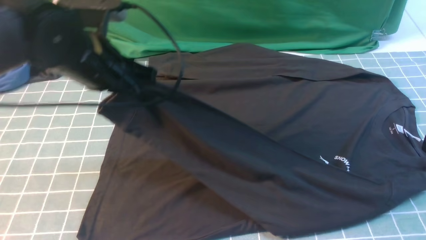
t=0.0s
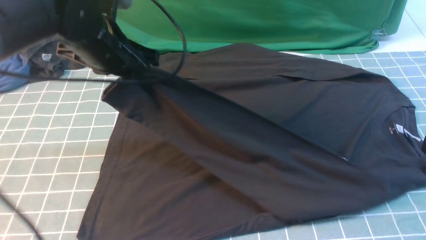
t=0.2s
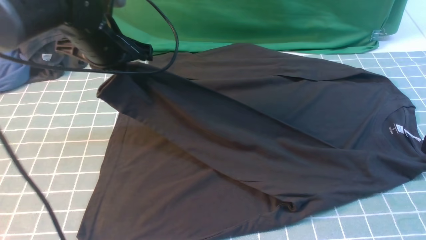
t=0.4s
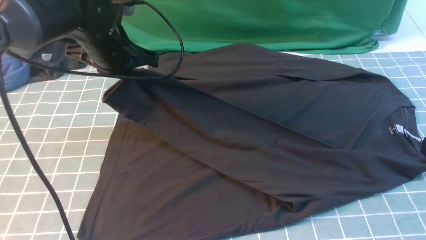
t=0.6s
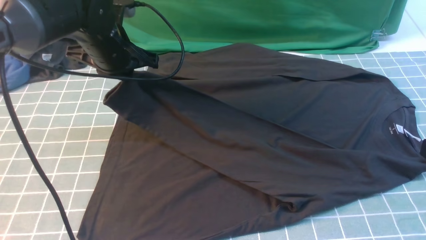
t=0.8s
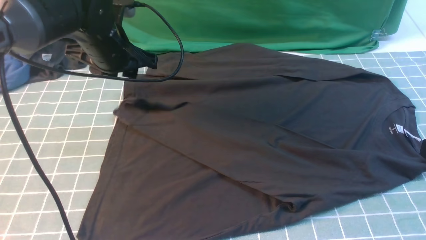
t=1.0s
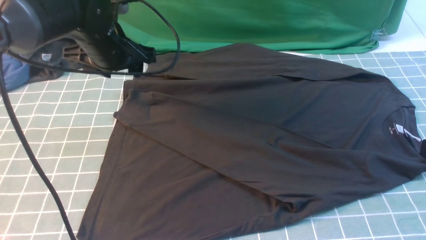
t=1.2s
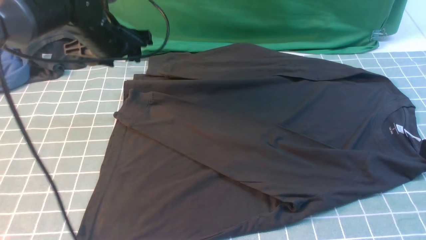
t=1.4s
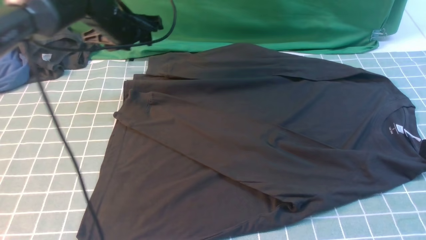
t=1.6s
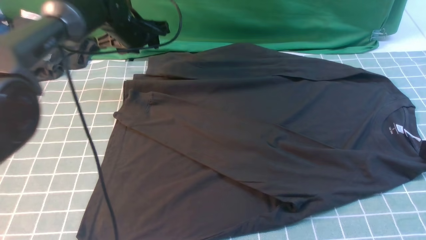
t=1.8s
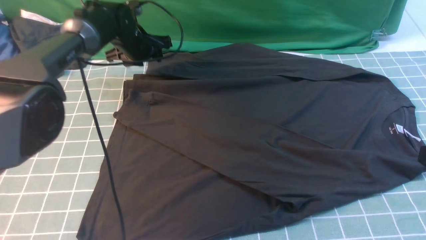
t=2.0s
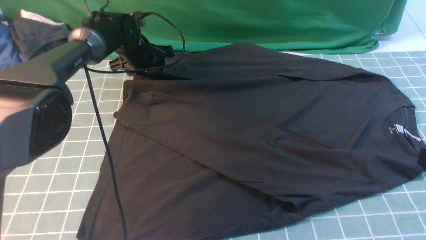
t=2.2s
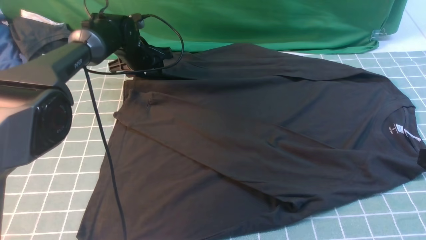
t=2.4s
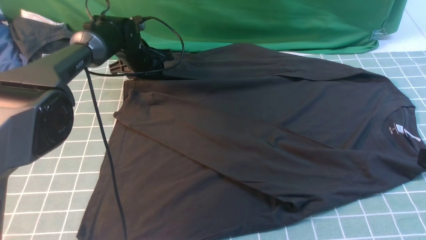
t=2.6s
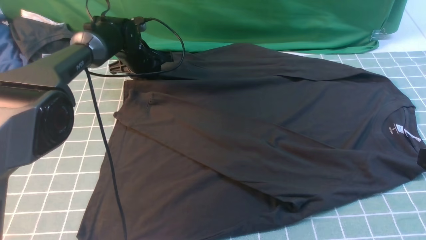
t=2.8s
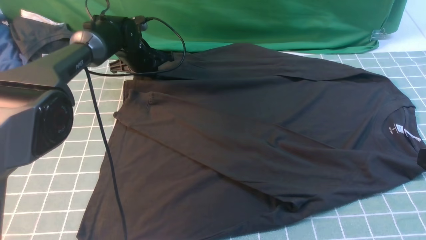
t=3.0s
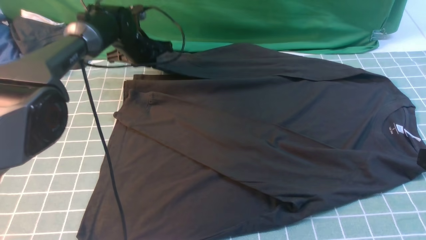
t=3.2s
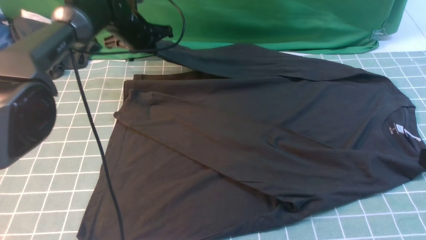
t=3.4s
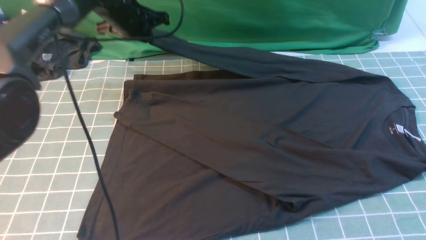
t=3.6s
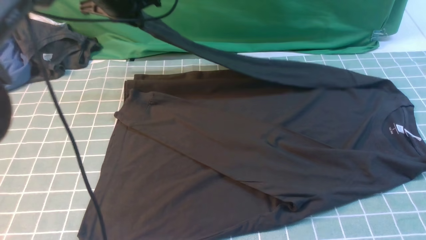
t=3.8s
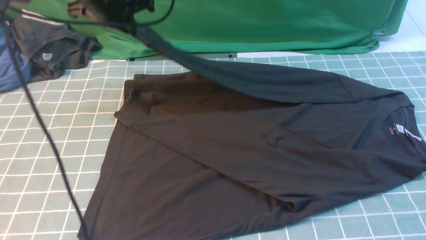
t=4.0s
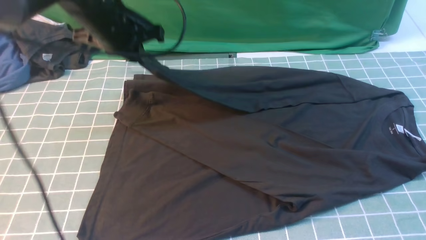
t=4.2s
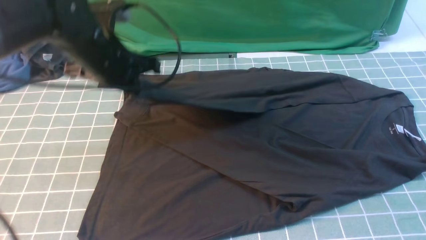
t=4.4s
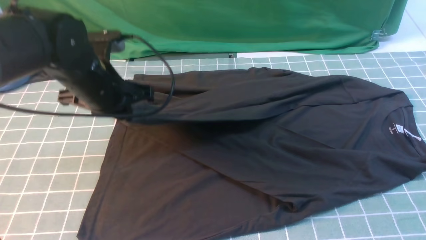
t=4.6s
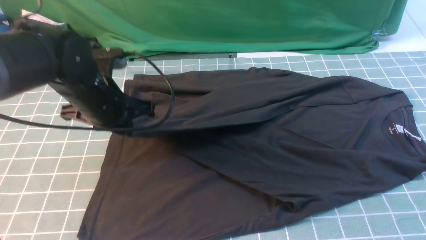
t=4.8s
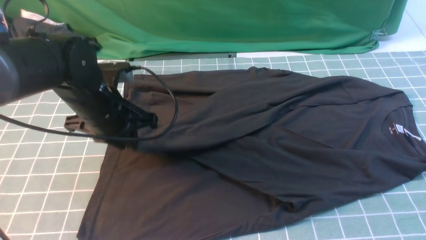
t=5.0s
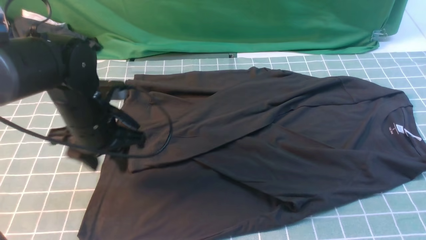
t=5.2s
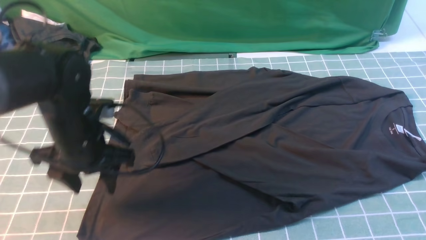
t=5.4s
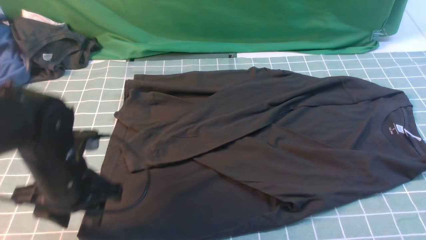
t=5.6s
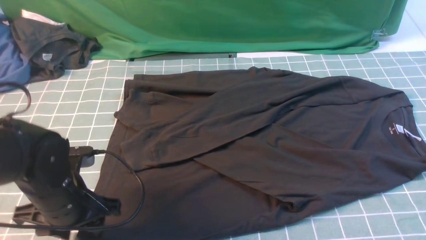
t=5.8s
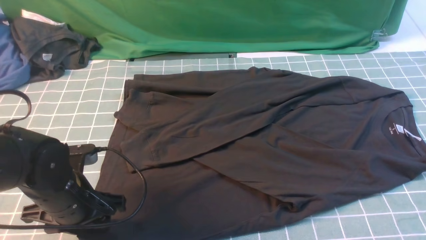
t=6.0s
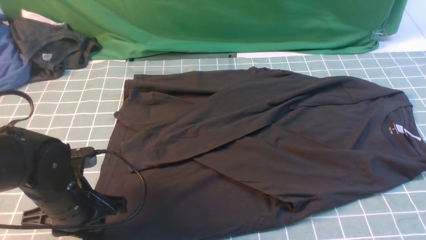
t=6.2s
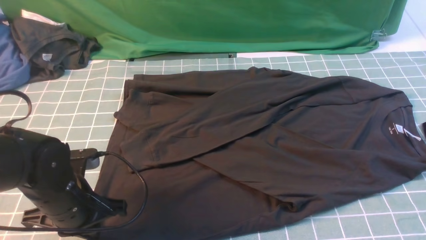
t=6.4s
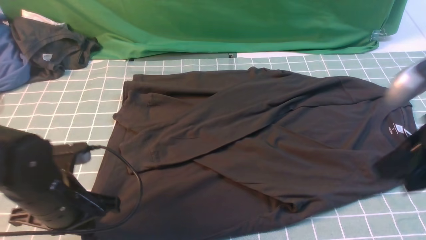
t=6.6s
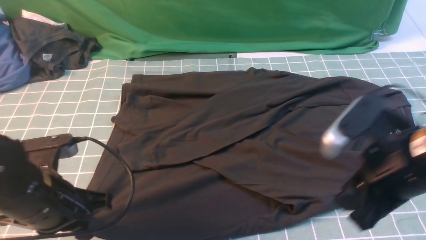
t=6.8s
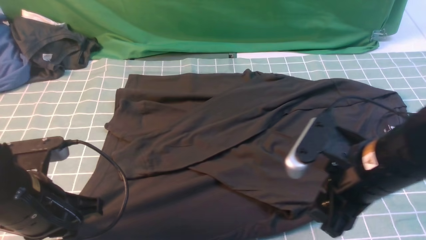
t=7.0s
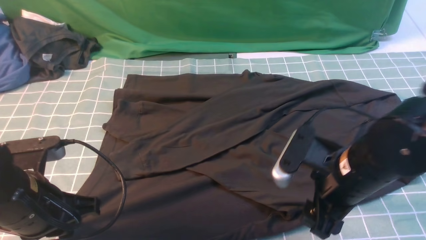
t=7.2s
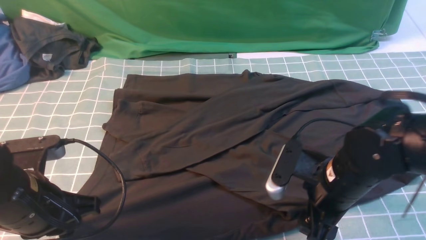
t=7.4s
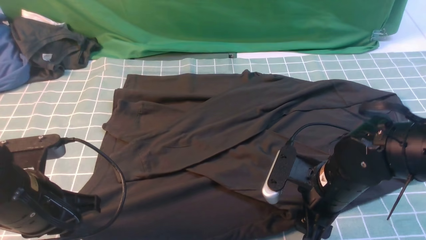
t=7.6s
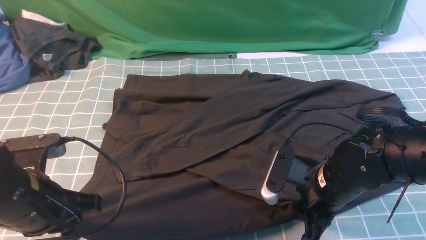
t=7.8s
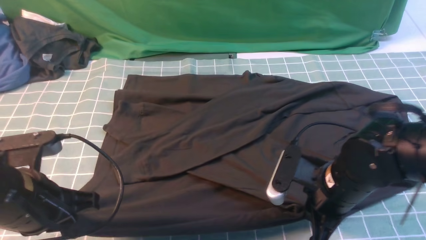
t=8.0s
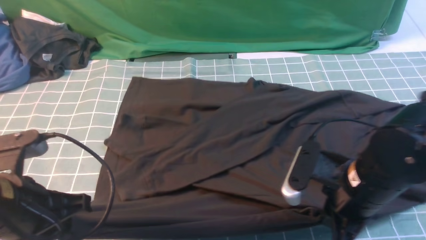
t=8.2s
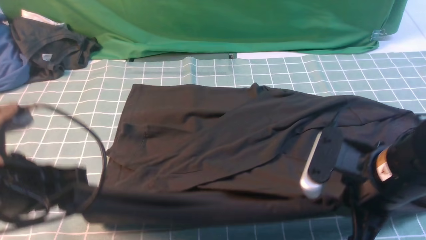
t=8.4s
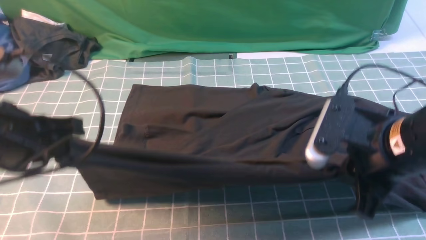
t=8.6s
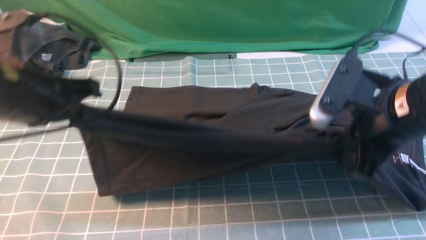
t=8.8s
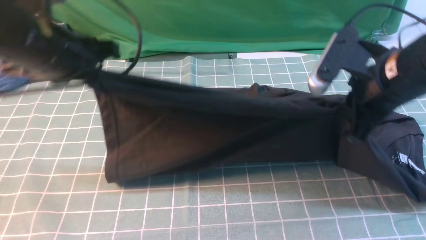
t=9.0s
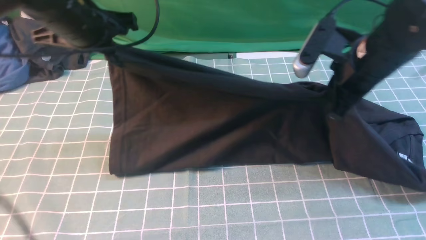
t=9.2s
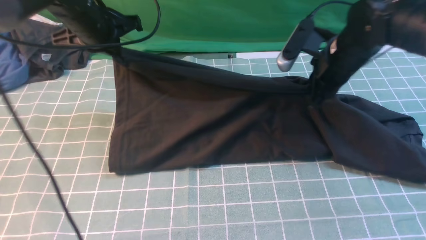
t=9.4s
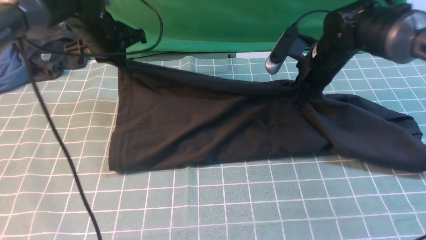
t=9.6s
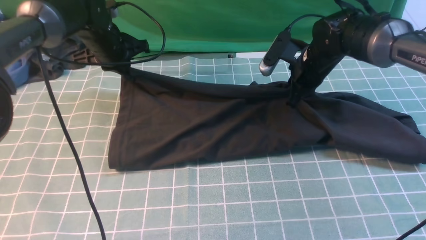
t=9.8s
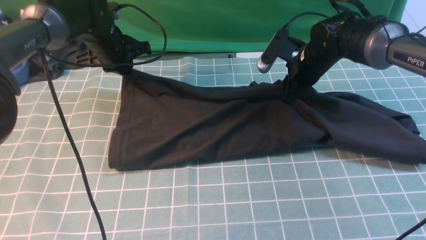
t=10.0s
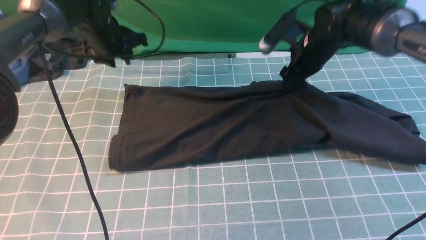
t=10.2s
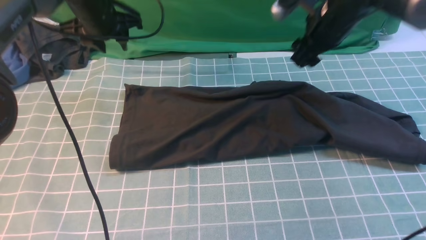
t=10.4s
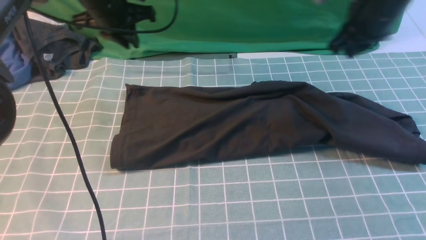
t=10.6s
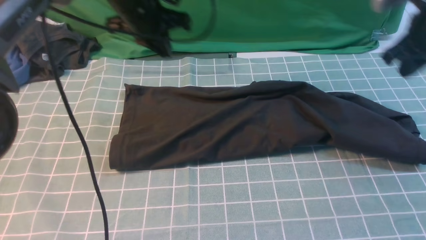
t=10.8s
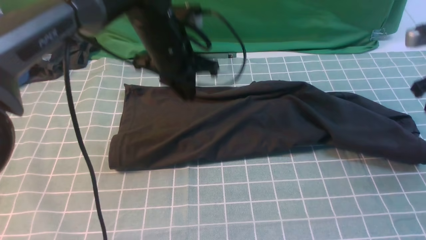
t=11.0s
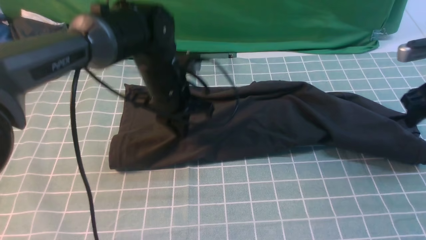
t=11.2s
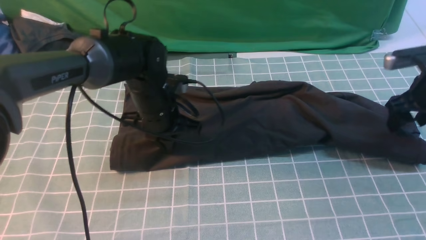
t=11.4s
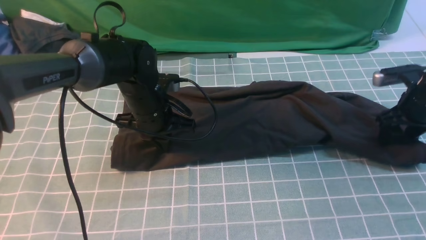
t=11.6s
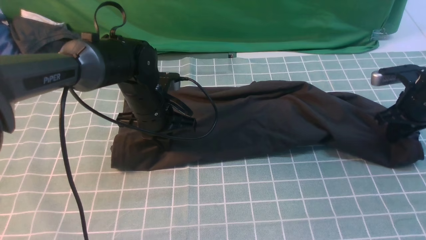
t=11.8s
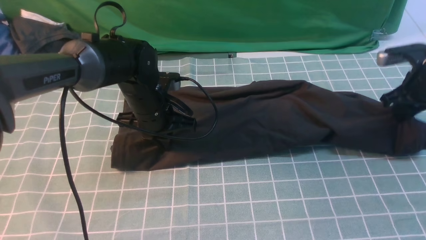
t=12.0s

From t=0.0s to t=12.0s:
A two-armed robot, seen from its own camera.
Step, from t=0.0s to t=1.2s: use the left arm to drag and place the cuff at the centered position on the left edge of the fabric.
Step, from t=1.4s to t=3.0s: use the left arm to clamp the cuff farthest from it.
Step, from t=3.2s to t=5.0s: use the left arm to drag and drop the cuff onto the cuff closest to the left arm.
Step, from t=5.2s to t=7.8s: use both arms simultaneously to clamp the lower edge of the clothing fabric.
Step, from t=8.0s to t=10.0s: use both arms to drag the lower edge of the fabric forward and fold it over the upper edge.
From t=0.0s to t=1.6s: The left gripper travels forward by roughly 15 cm, and opens up.
From t=1.6s to t=3.0s: The left gripper heads downward and forward, covering about 10 cm, and closes its fingers.
From t=3.0s to t=4.4s: The left gripper heads backward and upward, covering some 20 cm, while the right gripper goes approximately 5 cm upward.
From t=4.4s to t=6.0s: The left gripper shifts approximately 20 cm backward and downward, and opens up.
From t=6.0s to t=7.6s: The right gripper is displaced downward and to the left by approximately 25 cm, and opens up, while the left gripper shifts about 5 cm upward, and closes its fingers.
From t=7.6s to t=9.0s: The right gripper moves upward and forward, approximately 15 cm, and closes up; the left gripper goes approximately 20 cm forward and upward.
From t=9.0s to t=10.4s: Both grippers move forward, approximately 15 cm. The right gripper opens its fingers; the left gripper opens up.
From t=10.4s to t=12.0s: The left gripper travels backward, downward and to the right by approximately 15 cm, and closes up. The right gripper heads to the right and downward, covering some 20 cm, and closes up.

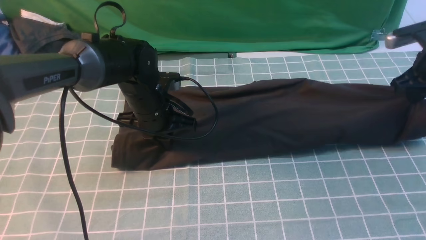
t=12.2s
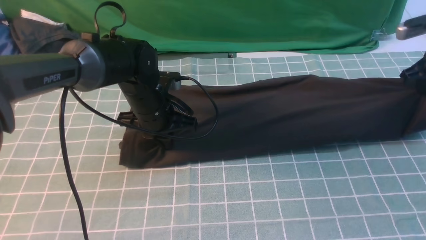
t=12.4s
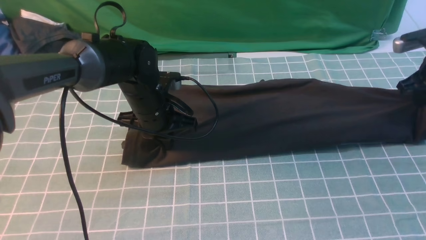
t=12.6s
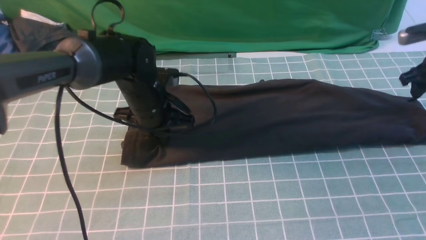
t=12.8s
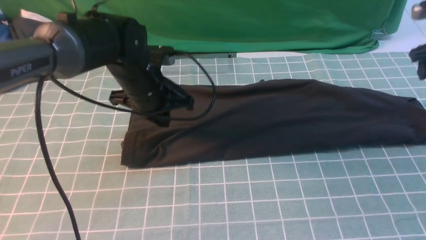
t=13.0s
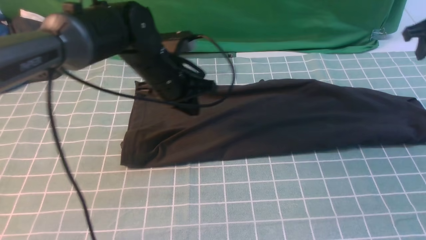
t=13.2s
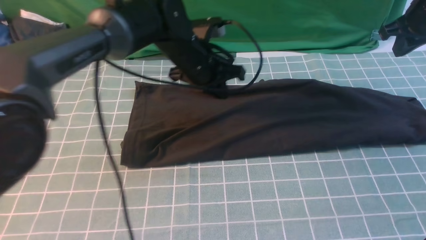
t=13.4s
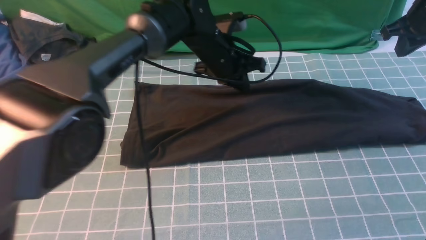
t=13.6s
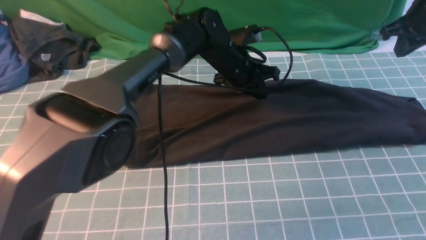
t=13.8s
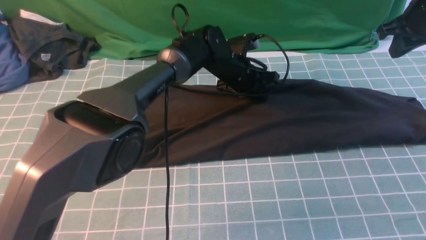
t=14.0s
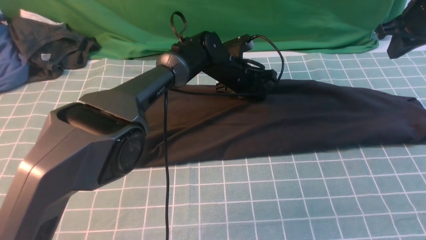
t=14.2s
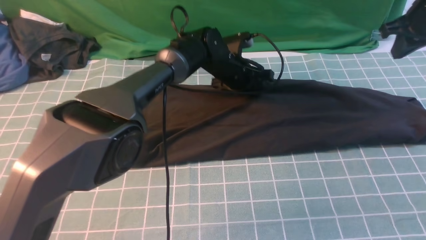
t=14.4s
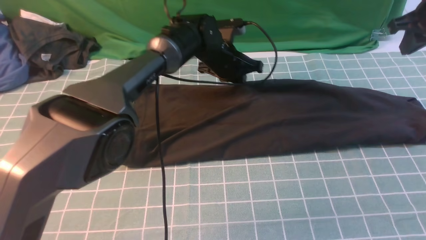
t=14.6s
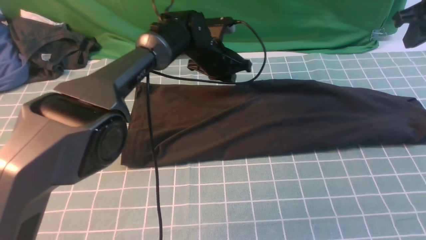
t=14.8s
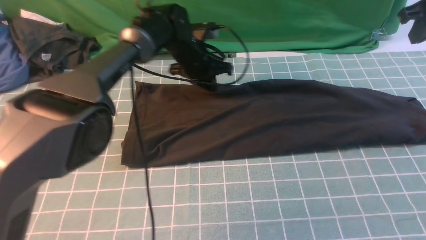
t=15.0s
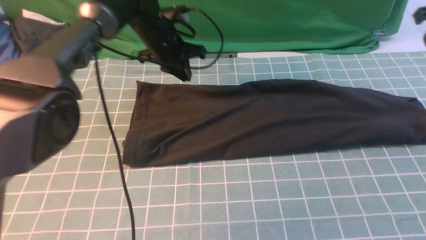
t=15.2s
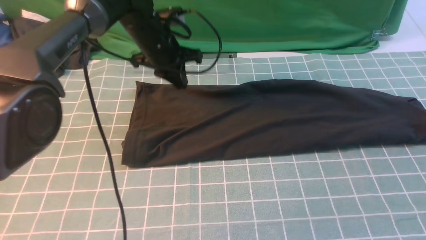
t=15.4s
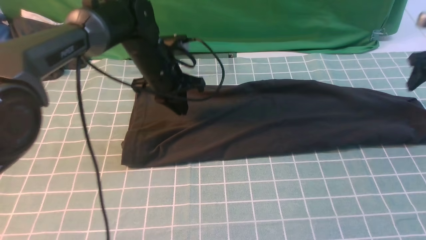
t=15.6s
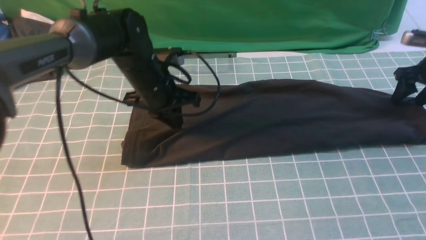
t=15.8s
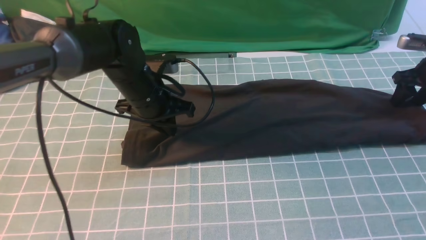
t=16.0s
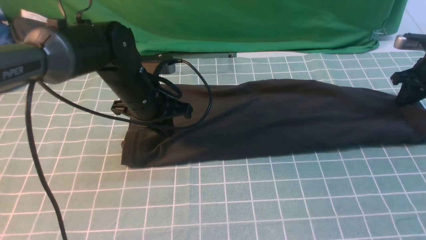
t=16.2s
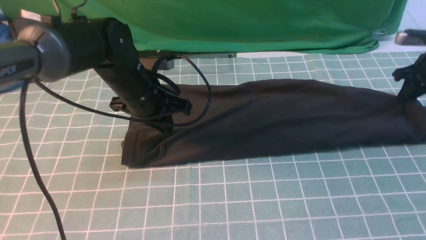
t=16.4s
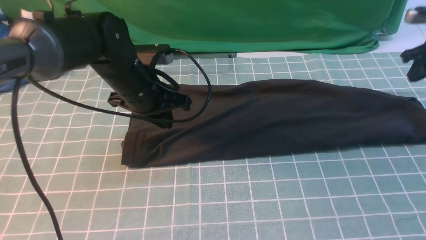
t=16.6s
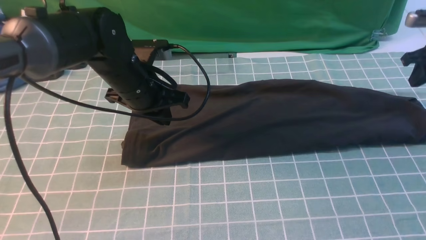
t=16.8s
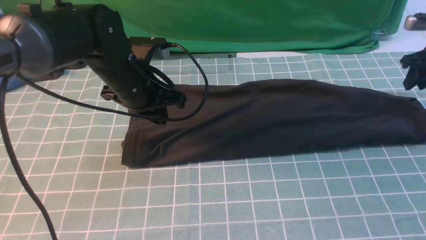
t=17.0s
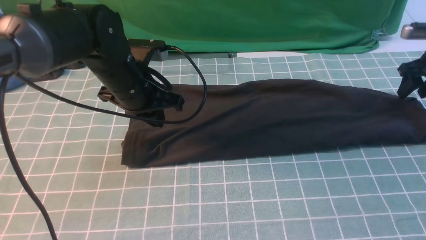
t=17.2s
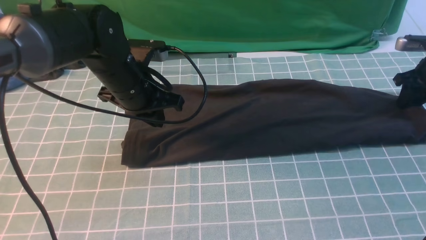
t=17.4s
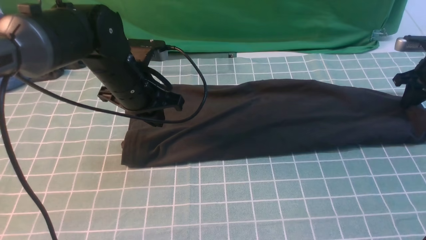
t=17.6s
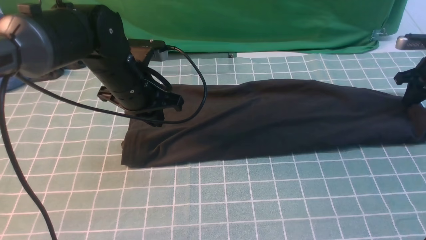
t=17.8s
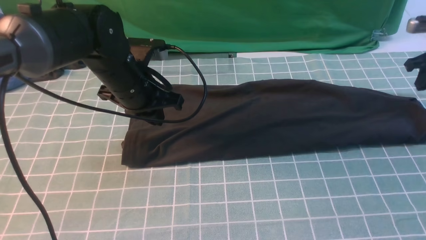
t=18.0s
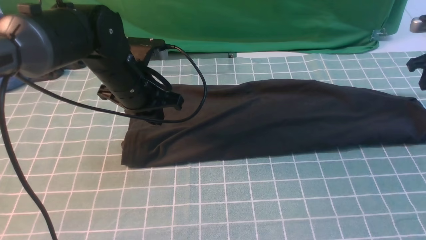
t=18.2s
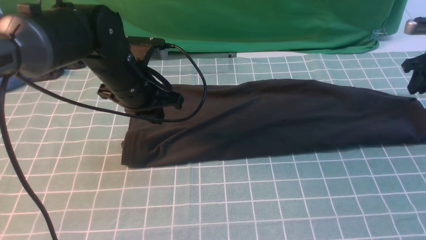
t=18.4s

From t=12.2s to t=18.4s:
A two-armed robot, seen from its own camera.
From t=12.2s to t=13.8s: The right gripper travels upward by some 5 cm, and opens, then closes again; the left gripper moves to the right and forward, roughly 15 cm.
From t=13.8s to t=15.4s: The left gripper is displaced to the left by approximately 15 cm; the right gripper is displaced to the right by some 10 cm, and opens its fingers.
From t=15.4s to t=16.8s: The right gripper goes roughly 5 cm downward, and closes. The left gripper is displaced backward by about 10 cm.
From t=16.8s to t=18.4s: The grippers move only a little.
